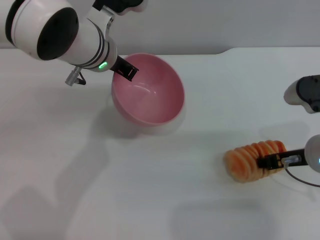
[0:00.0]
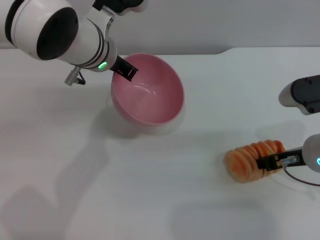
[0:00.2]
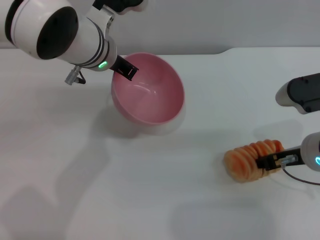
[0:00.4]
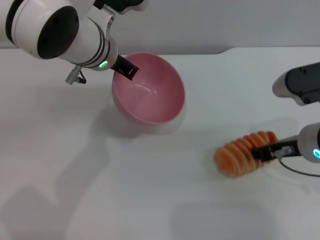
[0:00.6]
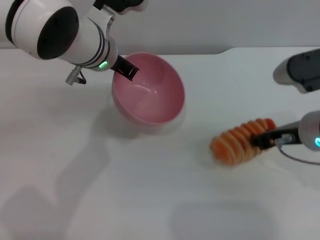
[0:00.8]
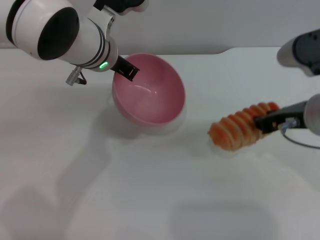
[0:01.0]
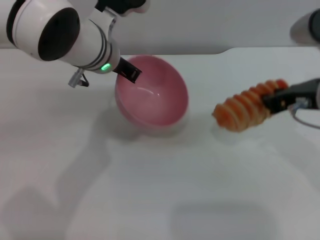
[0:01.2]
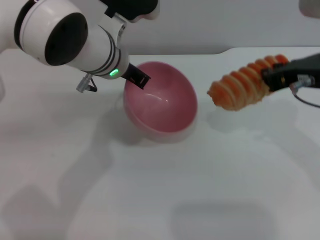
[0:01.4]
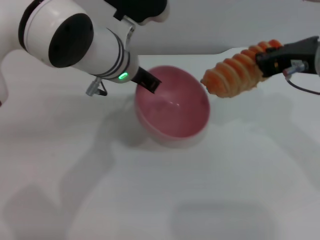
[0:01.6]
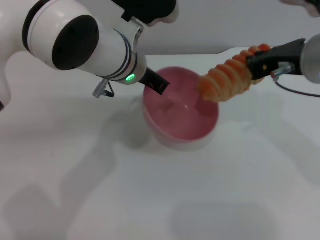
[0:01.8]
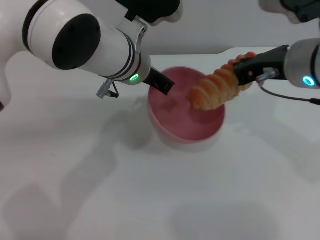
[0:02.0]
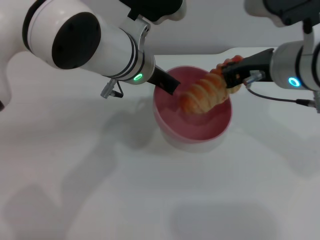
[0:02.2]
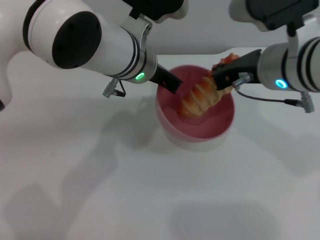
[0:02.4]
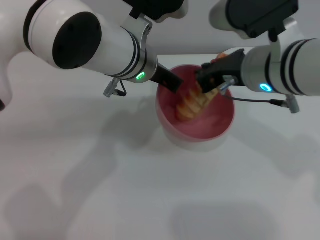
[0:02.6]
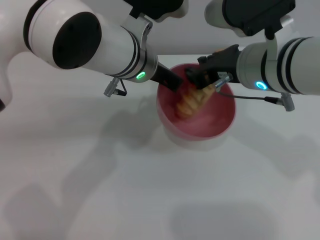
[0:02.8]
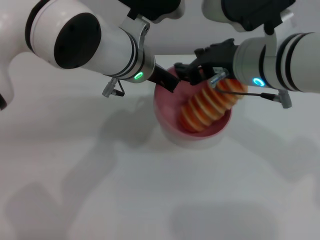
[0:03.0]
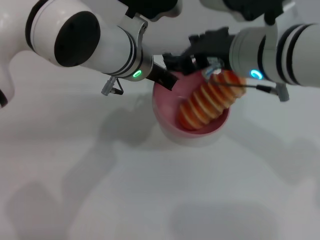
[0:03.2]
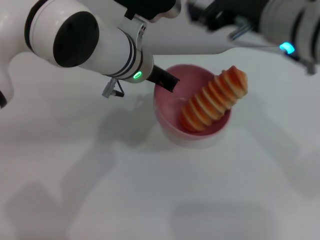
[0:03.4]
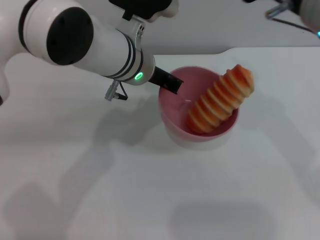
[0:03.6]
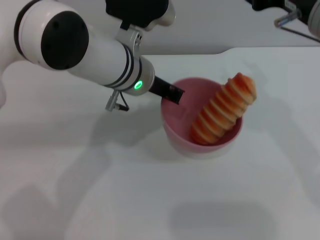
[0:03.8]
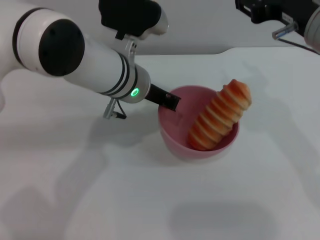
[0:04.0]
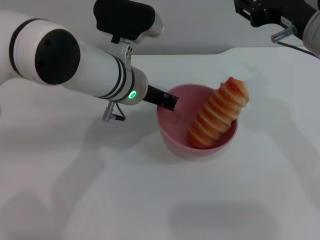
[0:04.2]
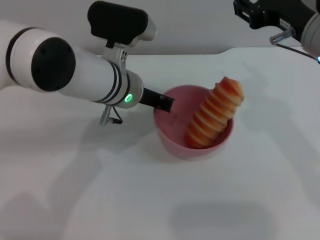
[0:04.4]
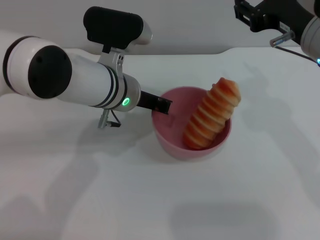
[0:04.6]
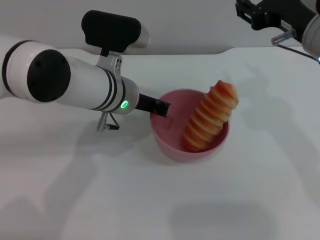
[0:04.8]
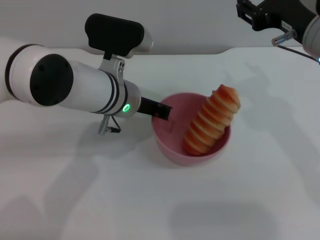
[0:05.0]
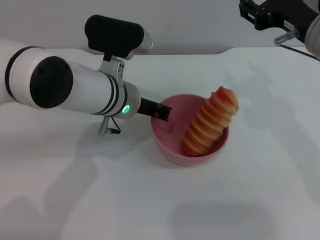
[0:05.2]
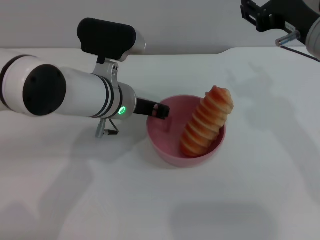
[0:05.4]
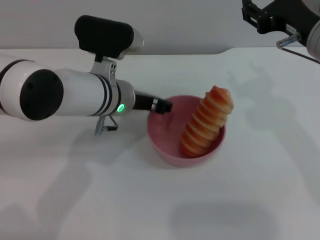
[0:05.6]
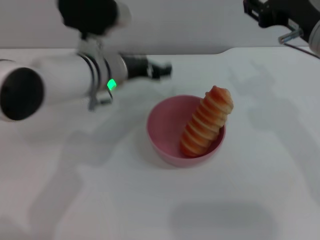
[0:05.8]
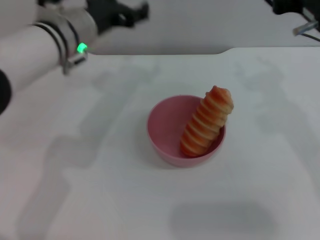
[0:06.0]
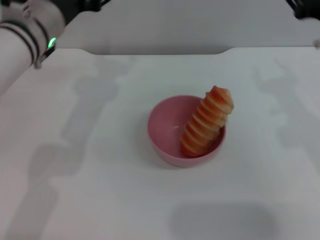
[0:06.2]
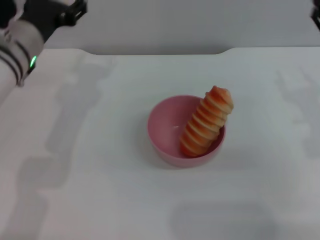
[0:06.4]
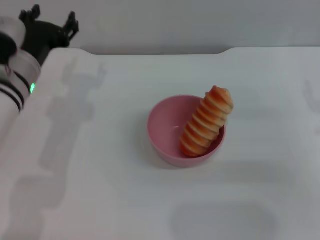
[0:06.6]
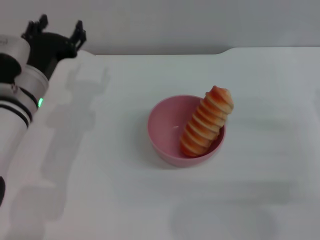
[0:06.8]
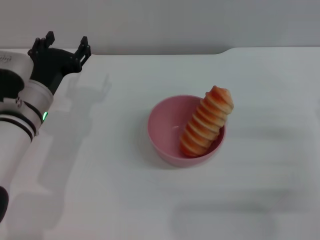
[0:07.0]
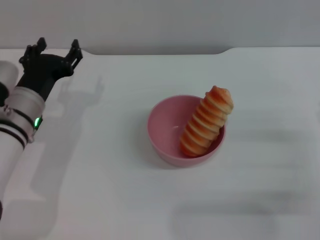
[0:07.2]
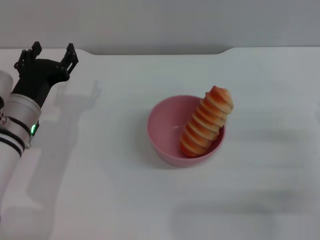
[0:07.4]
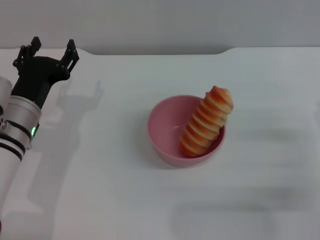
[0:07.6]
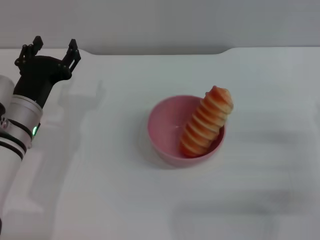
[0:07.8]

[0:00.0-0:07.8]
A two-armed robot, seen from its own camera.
Task of the whole recording: put the bread into the pink bowl and pour it out repeatedly.
Step, 0:01.2 to 0:03.2: Place the bread into the bowl.
Step, 0:03.4 to 0:05.8: Place the bowl on the table.
0:00.0 to 0:01.6: The right gripper heads upward, covering some 15 cm, and closes its fingers.
0:01.6 to 0:03.2: The right gripper travels to the left by about 5 cm, and opens up.
0:03.2 to 0:04.6: The left gripper changes place by roughly 5 cm. Meanwhile the right gripper moves to the right, about 5 cm.
0:04.6 to 0:06.2: The right gripper moves to the right, about 5 cm. Meanwhile the left gripper is displaced to the left by about 10 cm, and opens up.
0:06.2 to 0:07.8: The right gripper heads downward, to the right and backward, covering some 15 cm. The left gripper heads downward and backward, covering roughly 15 cm.
